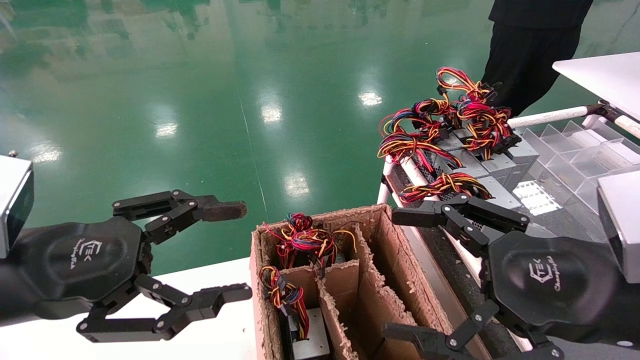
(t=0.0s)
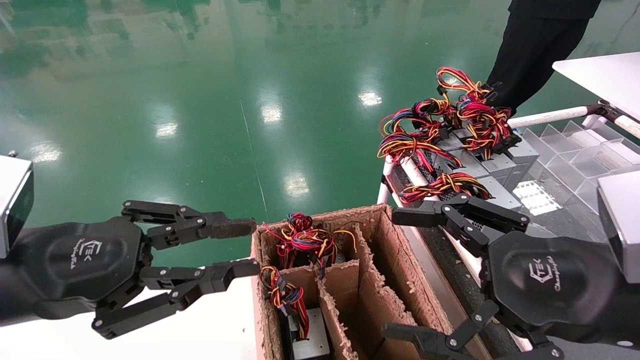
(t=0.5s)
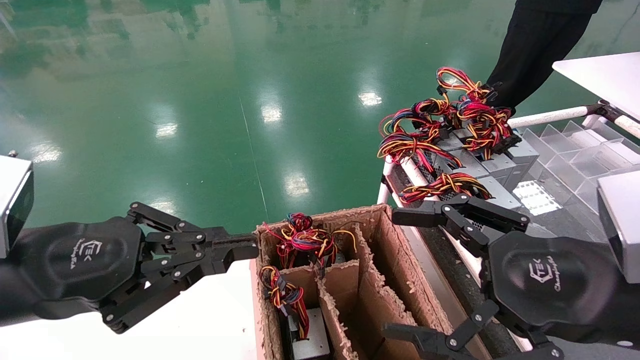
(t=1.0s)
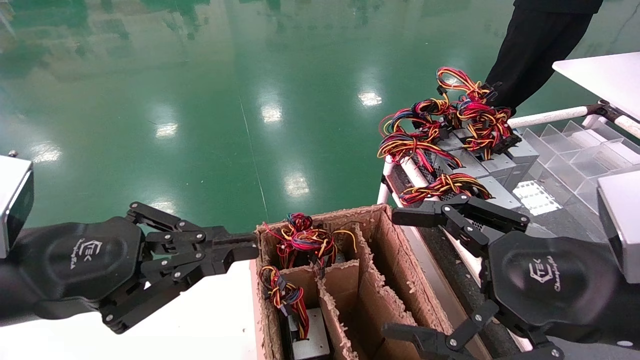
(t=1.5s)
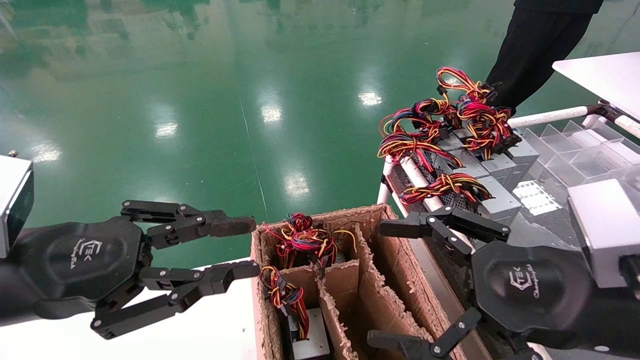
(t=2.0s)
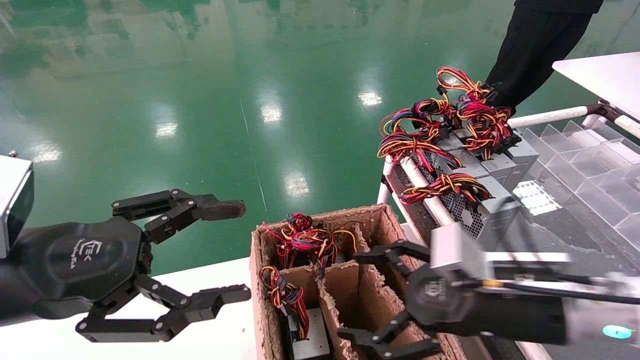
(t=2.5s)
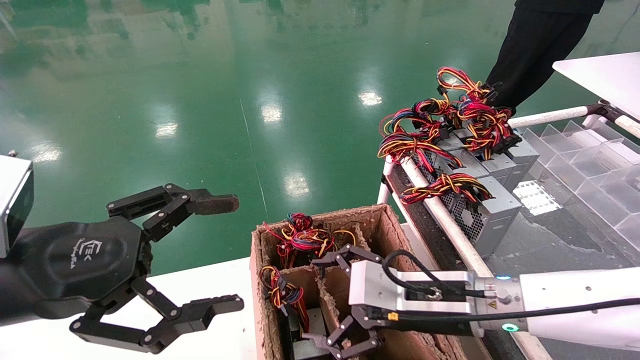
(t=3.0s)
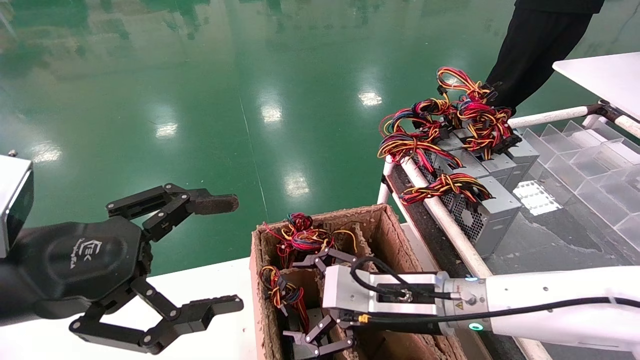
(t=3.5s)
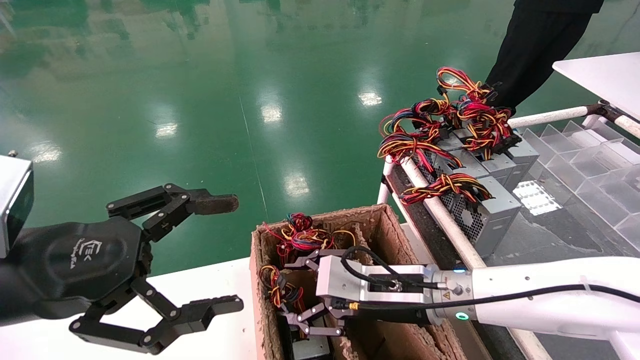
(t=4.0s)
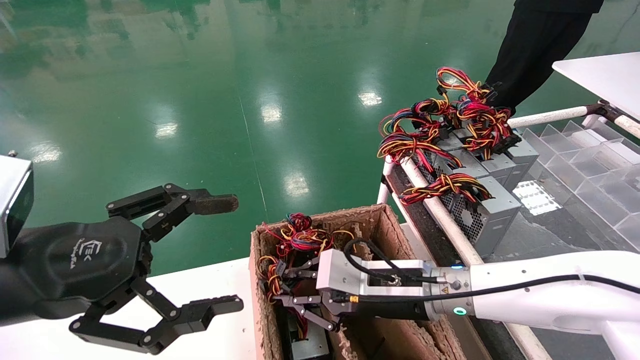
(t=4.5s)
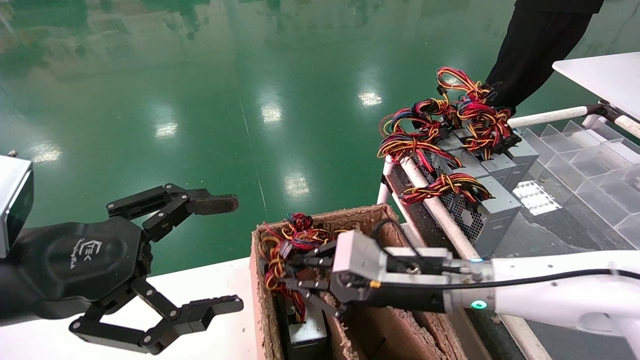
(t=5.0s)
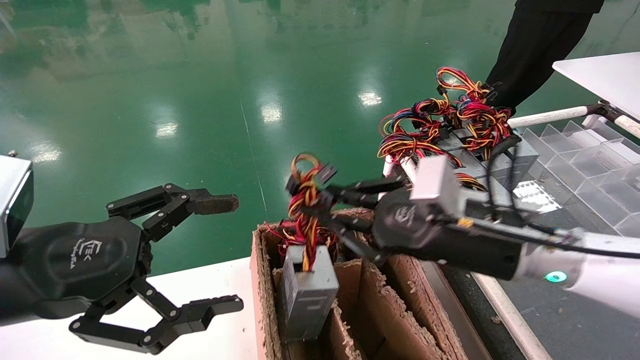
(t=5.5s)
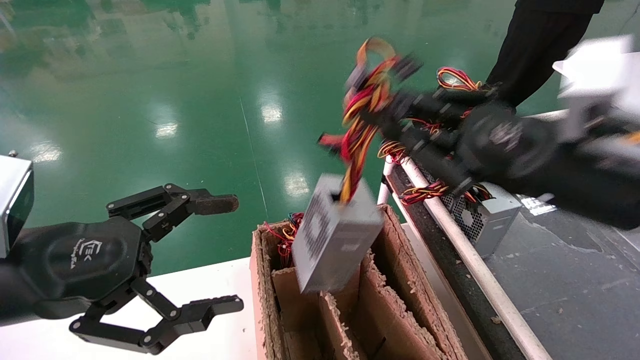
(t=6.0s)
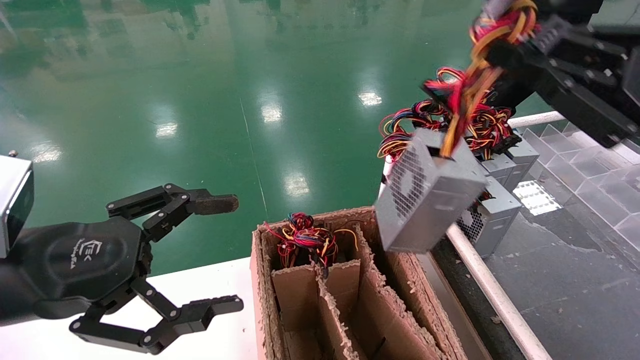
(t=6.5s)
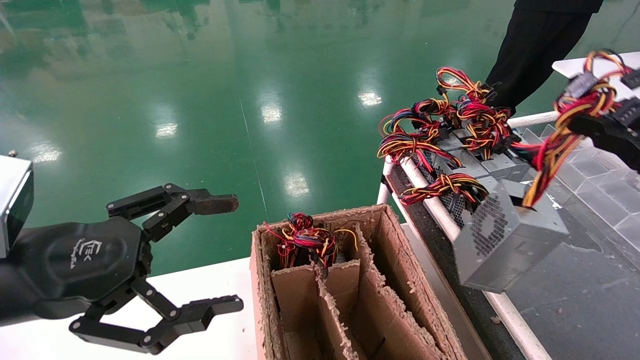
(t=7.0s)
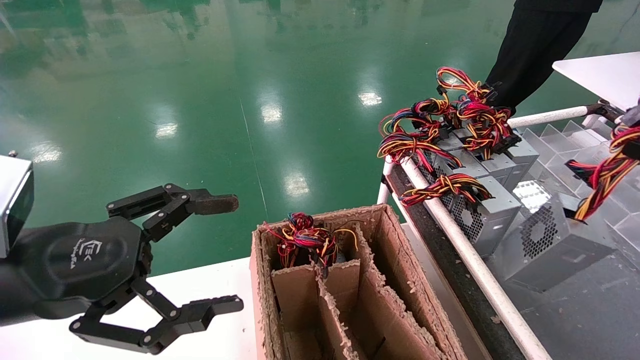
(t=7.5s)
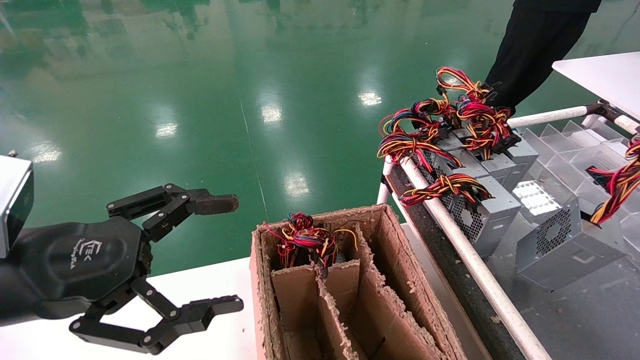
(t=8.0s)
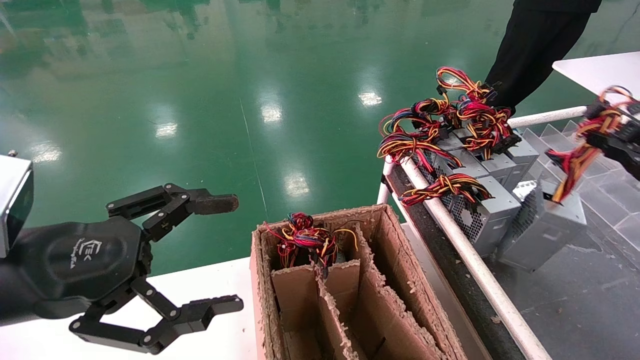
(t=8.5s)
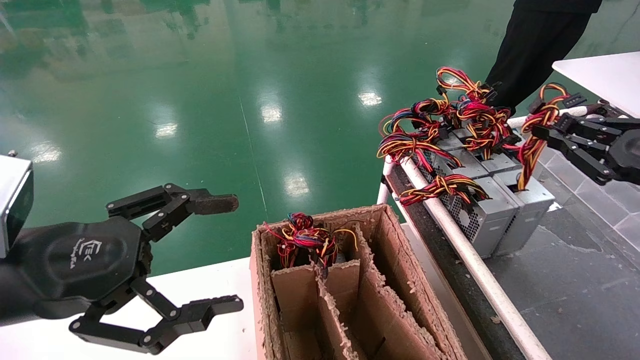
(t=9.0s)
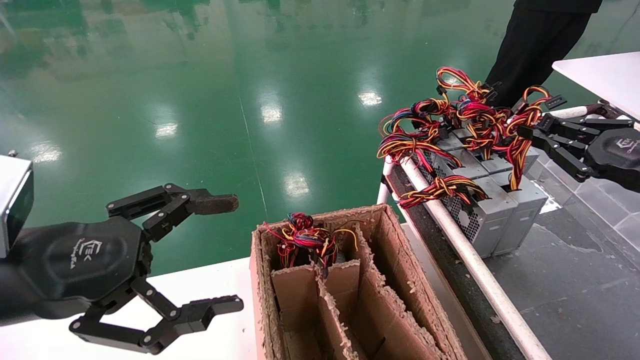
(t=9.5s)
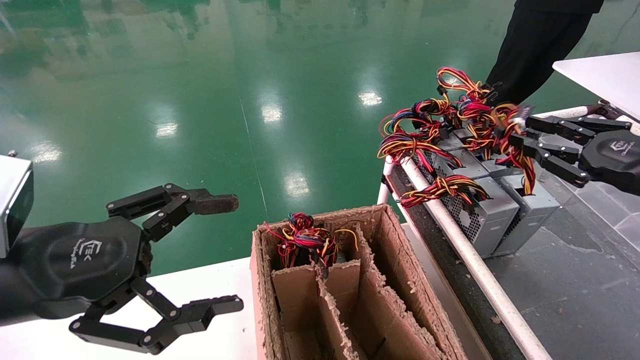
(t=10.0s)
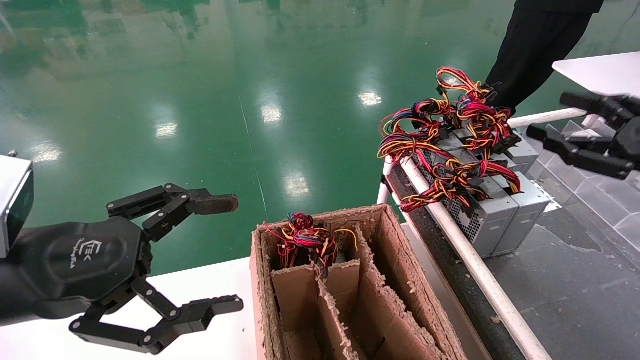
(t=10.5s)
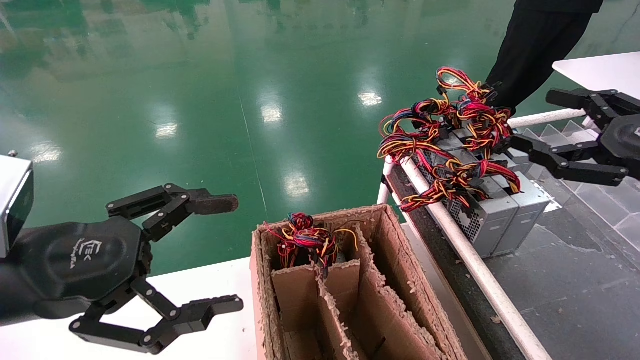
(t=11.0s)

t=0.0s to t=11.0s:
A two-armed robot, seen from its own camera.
Step, t=1.5s to t=4.5s: Grab and lift the power supply from the large box.
Step, t=5.0s to t=9.5s: Place the power supply on the operating table.
t=0.0s to t=2.0s: The left gripper closes its fingers.
t=2.0s to t=3.5s: The right gripper shifts some 20 cm to the left, forward and downward. Meanwhile the left gripper opens its fingers.
t=3.5s to t=5.5s: The right gripper heads upward and to the right, covering some 10 cm, and closes.
t=5.5s to t=7.5s: The right gripper is displaced to the right by approximately 30 cm.
t=7.5s to t=9.0s: The right gripper shifts roughly 10 cm forward.
t=9.0s to t=11.0s: The right gripper opens.
